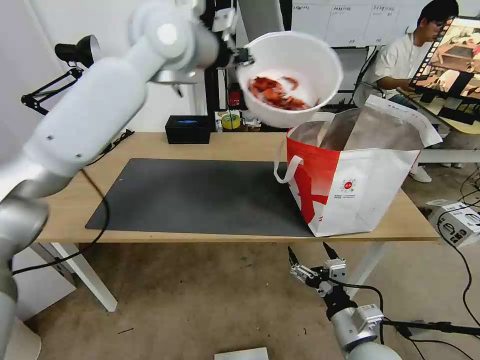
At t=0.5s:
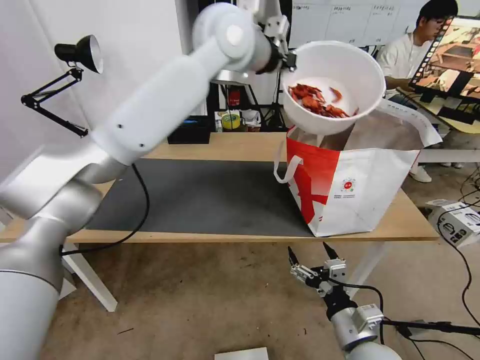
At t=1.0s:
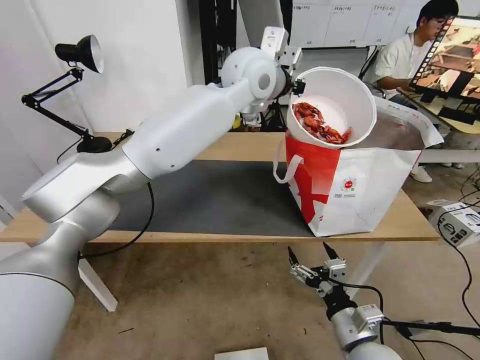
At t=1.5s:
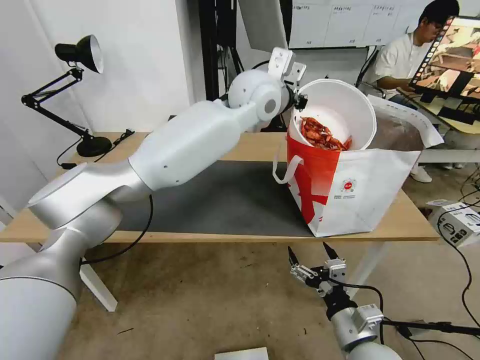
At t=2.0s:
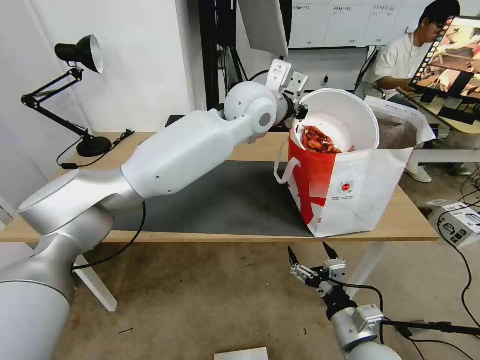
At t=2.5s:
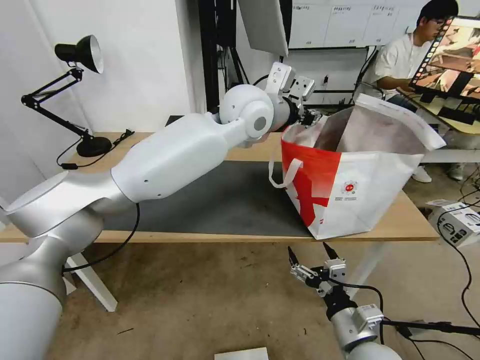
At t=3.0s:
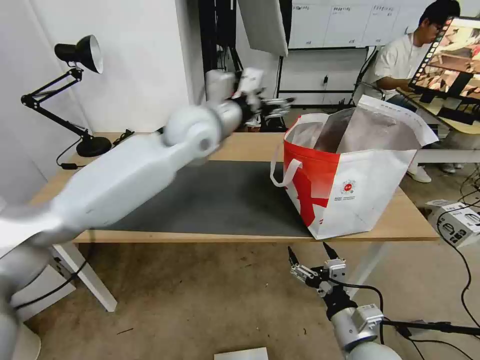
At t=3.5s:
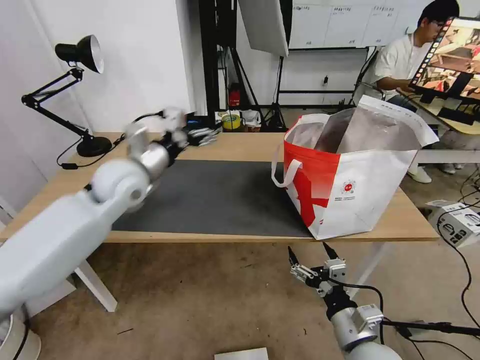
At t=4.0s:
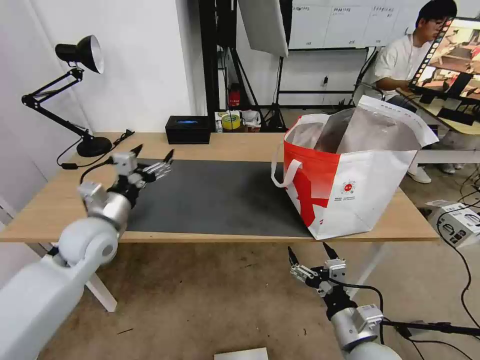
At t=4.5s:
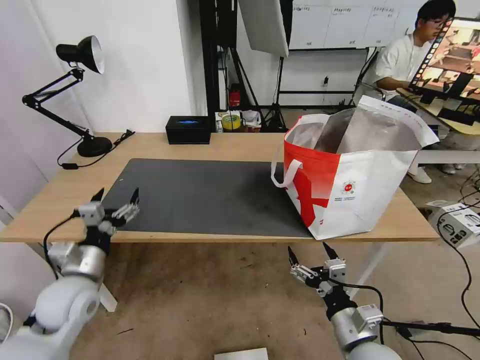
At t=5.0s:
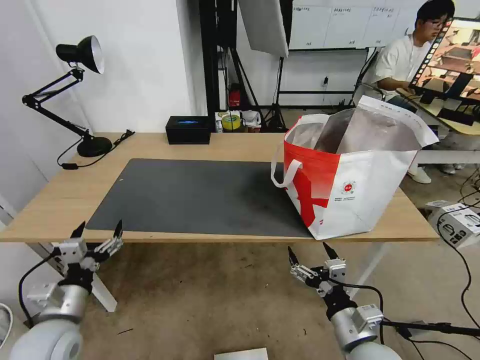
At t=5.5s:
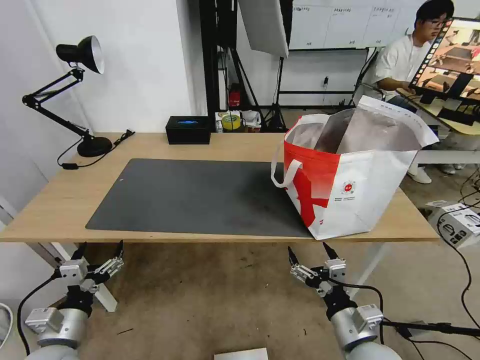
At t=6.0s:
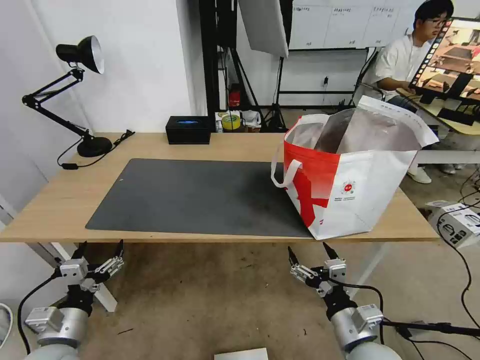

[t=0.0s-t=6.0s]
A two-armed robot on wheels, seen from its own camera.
Task of the whole recording: Pick up the trash from the table and place it into the takeout bag.
t=0.0s to t=2.0s: The left gripper shifts about 20 cm to the right and downward.
t=2.0s to t=4.0s: The left gripper goes roughly 40 cm to the left, downward and backward, and opens its fingers.
t=4.0s to t=6.0s: The left gripper shifts about 25 cm backward and downward.
